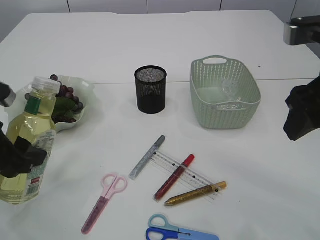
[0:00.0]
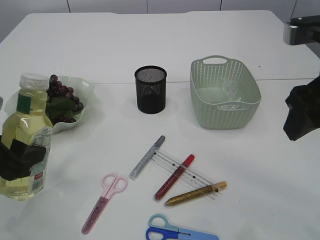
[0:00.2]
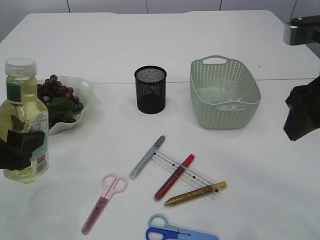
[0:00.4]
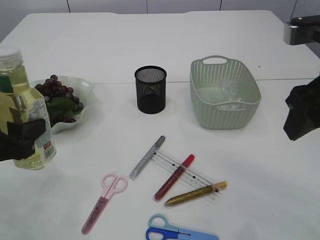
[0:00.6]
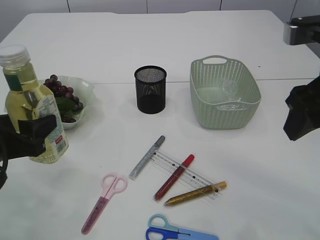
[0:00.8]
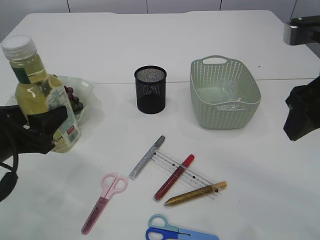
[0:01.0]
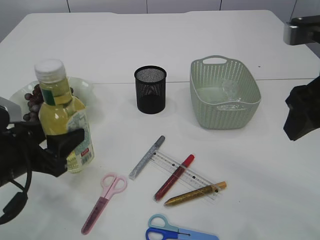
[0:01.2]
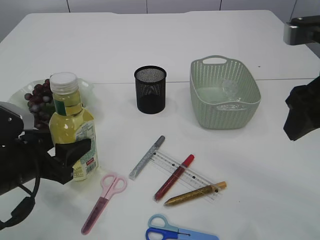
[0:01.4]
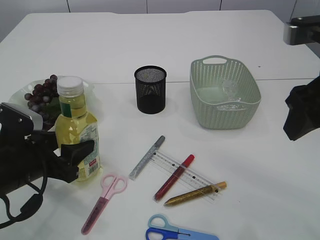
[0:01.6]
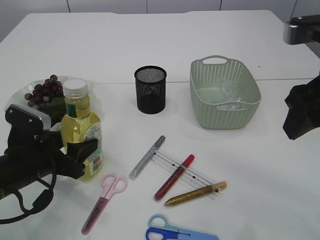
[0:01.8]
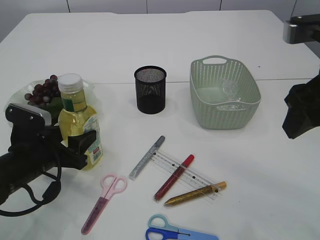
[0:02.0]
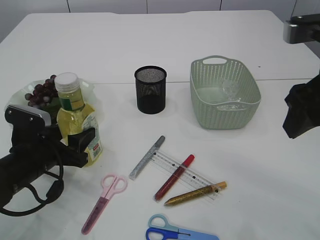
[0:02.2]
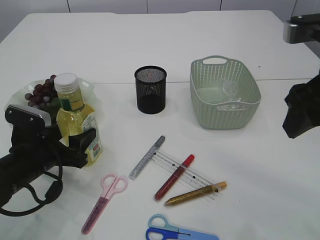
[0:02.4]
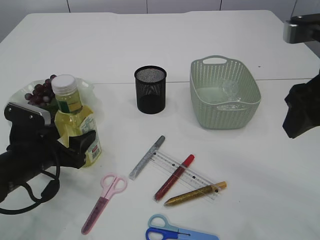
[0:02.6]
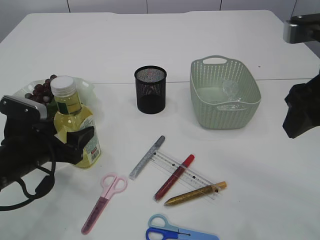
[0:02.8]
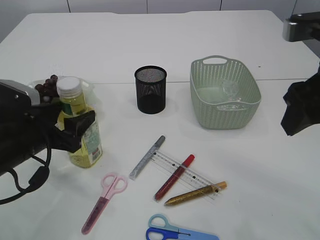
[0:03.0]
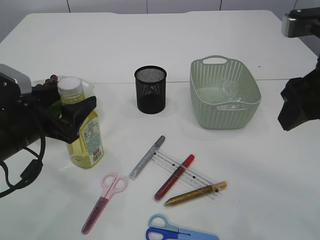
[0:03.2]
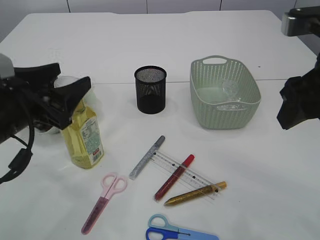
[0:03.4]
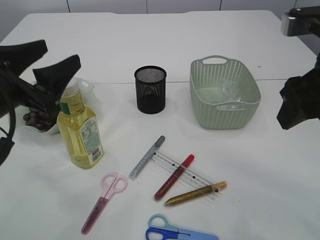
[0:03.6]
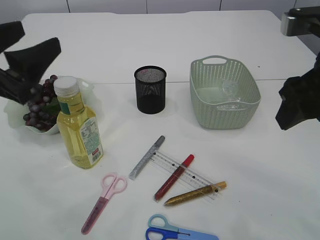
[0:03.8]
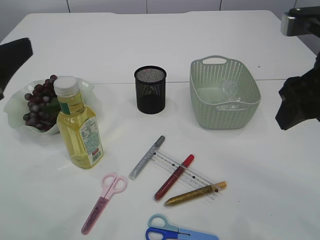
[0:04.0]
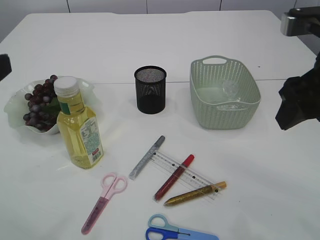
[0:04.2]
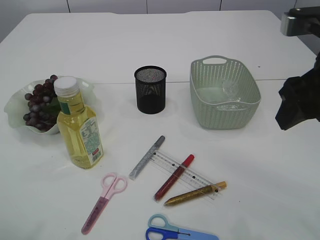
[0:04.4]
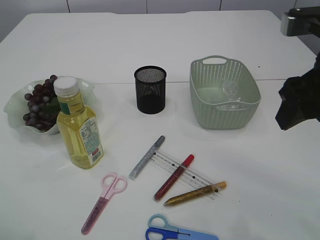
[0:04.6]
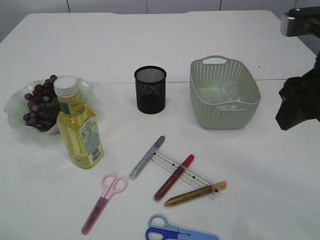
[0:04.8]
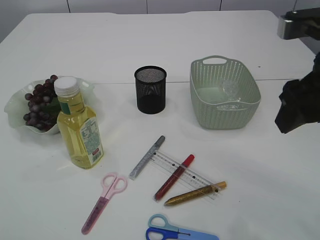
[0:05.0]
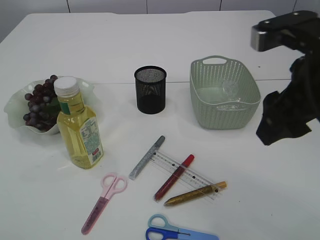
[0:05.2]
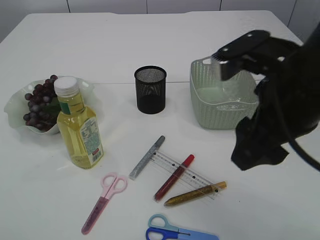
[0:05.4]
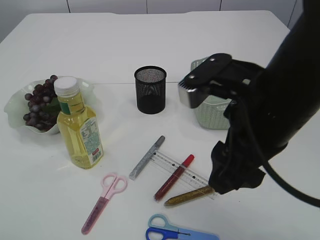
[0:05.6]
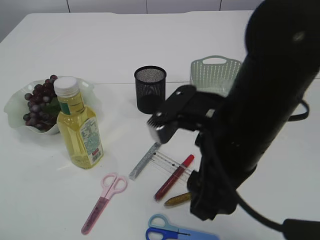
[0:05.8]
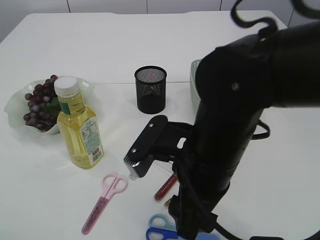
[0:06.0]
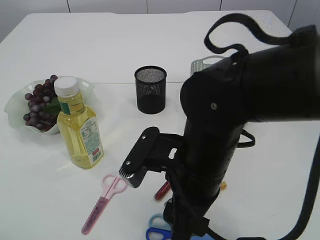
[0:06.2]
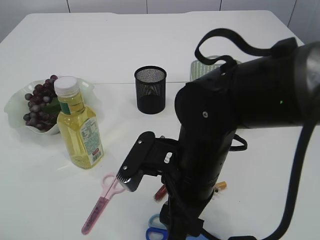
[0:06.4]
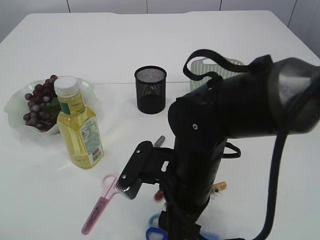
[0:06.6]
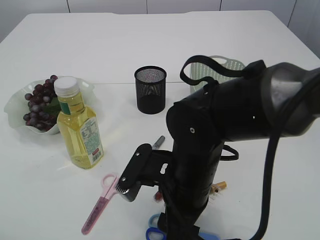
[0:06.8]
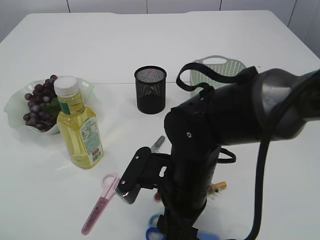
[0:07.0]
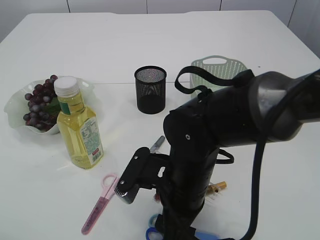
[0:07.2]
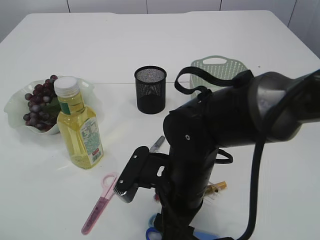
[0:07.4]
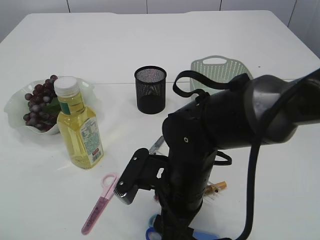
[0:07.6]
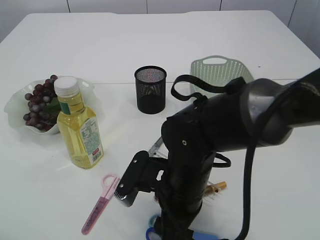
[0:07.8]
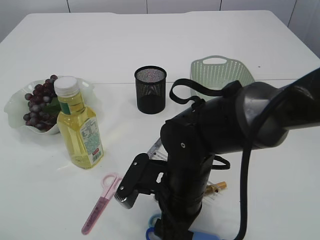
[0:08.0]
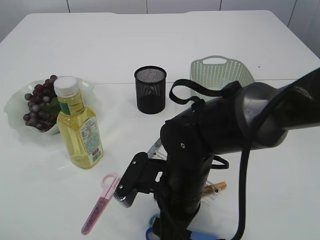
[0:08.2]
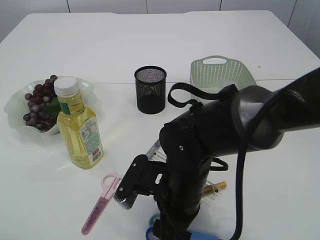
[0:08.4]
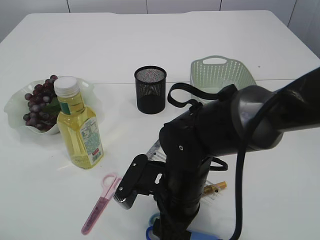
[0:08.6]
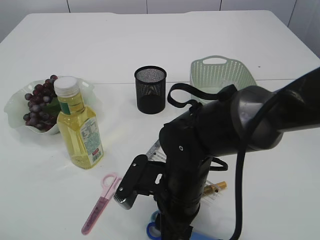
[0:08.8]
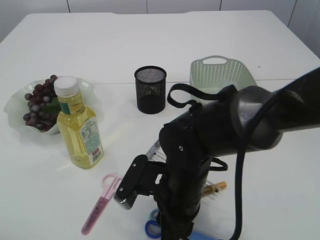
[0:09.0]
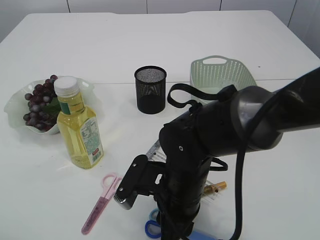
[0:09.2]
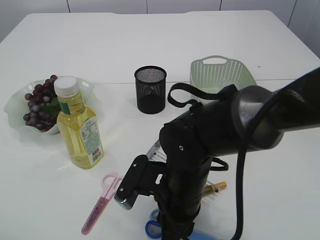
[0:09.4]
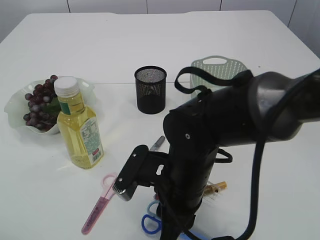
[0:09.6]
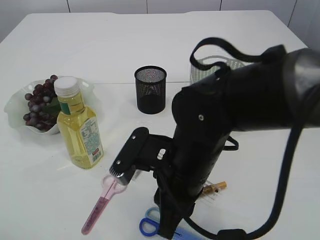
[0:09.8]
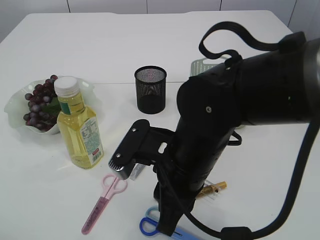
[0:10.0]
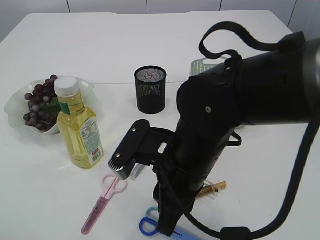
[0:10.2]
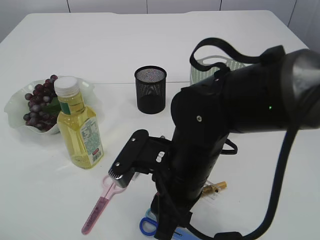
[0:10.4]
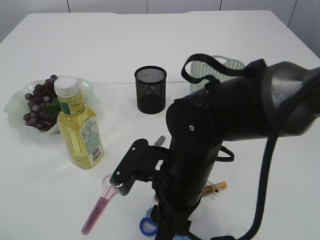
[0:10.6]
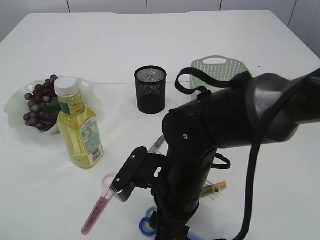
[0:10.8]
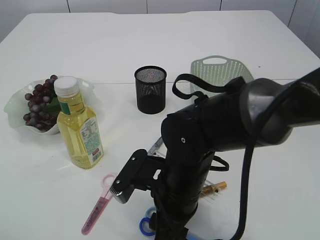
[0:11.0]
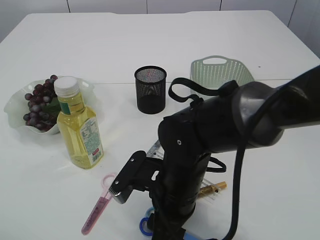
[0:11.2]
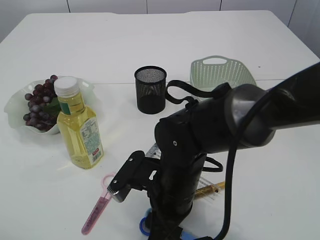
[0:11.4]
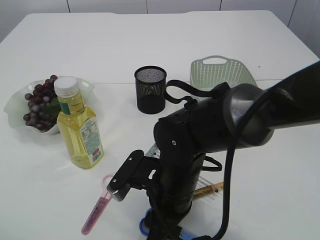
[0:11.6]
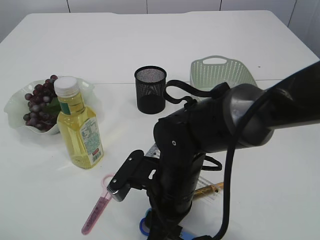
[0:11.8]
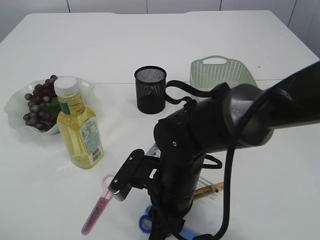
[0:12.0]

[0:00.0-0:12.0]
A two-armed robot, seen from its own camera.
Step, 0:00.4 to 0:03.6: Place the bottle.
0:00.0 to 0:01.6: The left gripper shifts approximately 10 cm downward.
0:01.6 to 0:03.0: The grippers make only small movements.
0:03.0 to 0:04.4: The left gripper goes approximately 20 cm upward and backward.
0:04.4 to 0:06.0: The left gripper moves about 5 cm, while the right gripper heads to the left and downward, covering roughly 20 cm.
0:06.0 to 0:07.6: The right gripper heads downward, covering roughly 10 cm.
0:07.6 to 0:09.0: The right gripper closes.
0:09.0 to 0:10.4: The right gripper heads upward, covering about 5 cm.
0:10.4 to 0:12.0: The right gripper heads downward, covering about 5 cm.

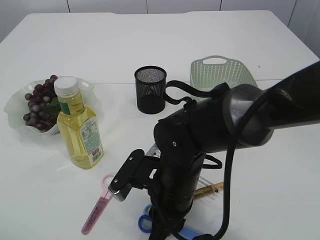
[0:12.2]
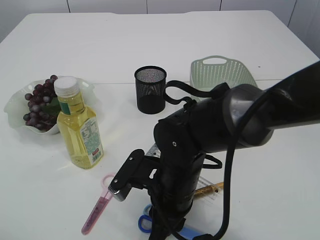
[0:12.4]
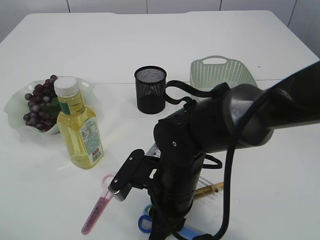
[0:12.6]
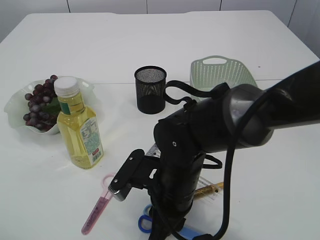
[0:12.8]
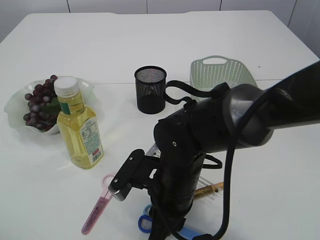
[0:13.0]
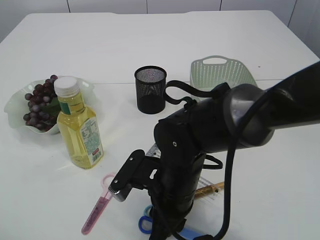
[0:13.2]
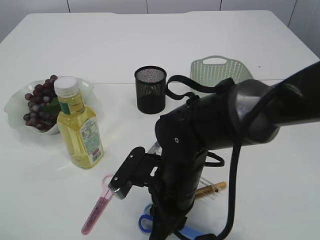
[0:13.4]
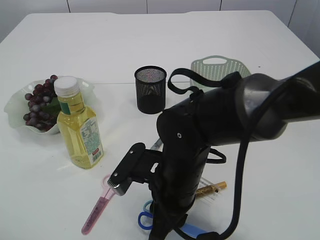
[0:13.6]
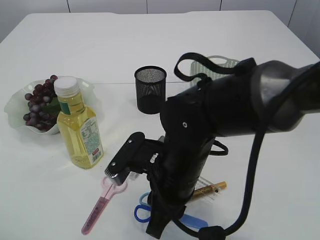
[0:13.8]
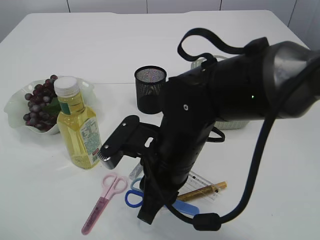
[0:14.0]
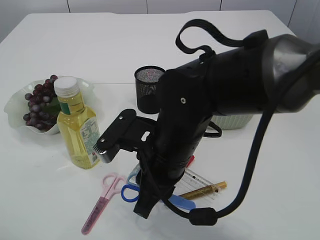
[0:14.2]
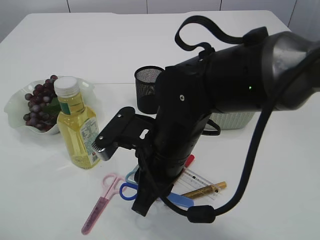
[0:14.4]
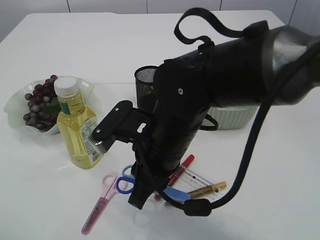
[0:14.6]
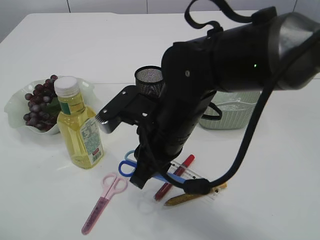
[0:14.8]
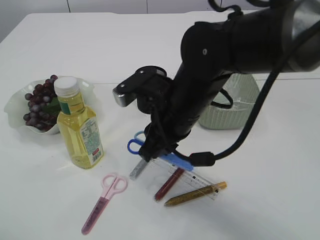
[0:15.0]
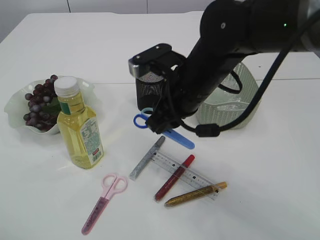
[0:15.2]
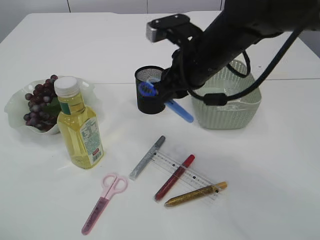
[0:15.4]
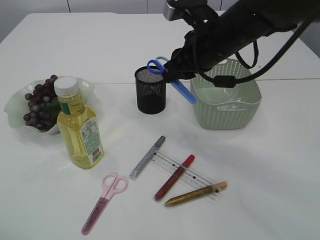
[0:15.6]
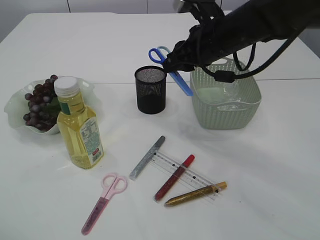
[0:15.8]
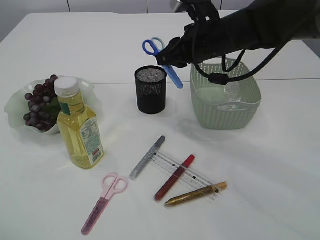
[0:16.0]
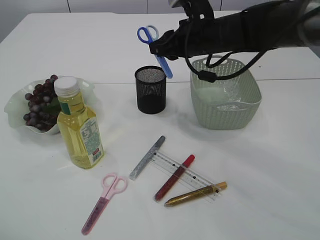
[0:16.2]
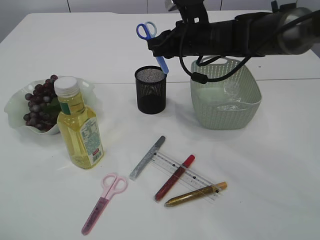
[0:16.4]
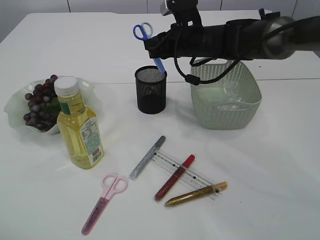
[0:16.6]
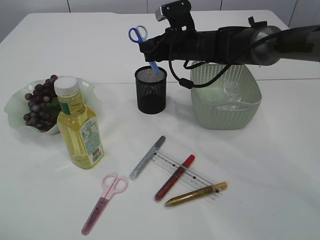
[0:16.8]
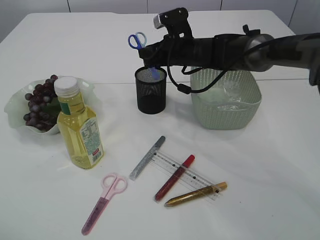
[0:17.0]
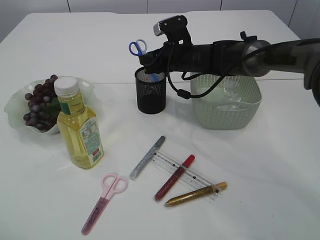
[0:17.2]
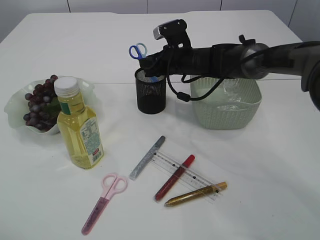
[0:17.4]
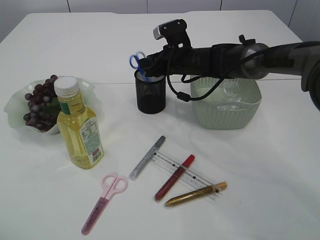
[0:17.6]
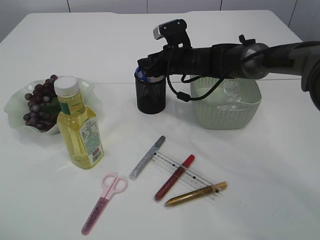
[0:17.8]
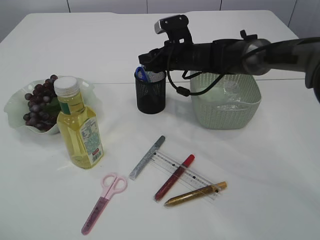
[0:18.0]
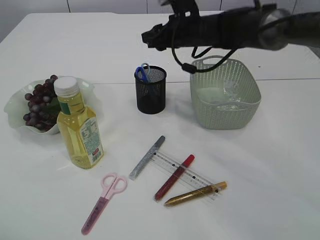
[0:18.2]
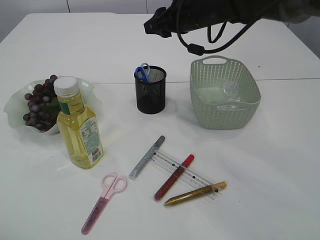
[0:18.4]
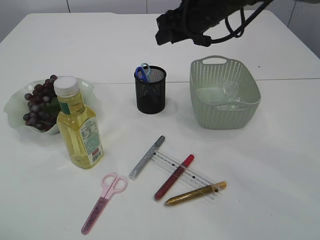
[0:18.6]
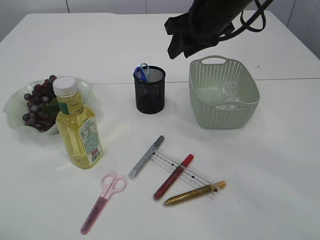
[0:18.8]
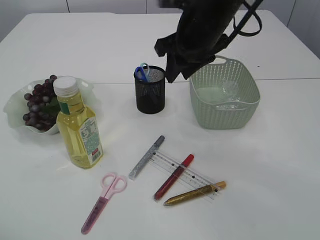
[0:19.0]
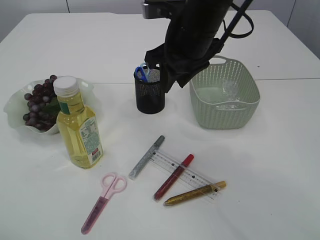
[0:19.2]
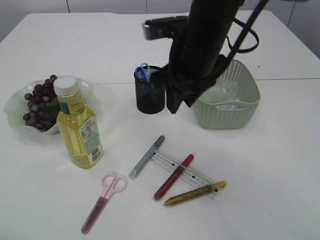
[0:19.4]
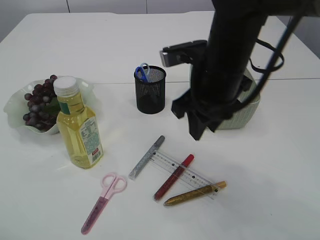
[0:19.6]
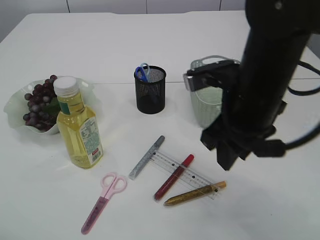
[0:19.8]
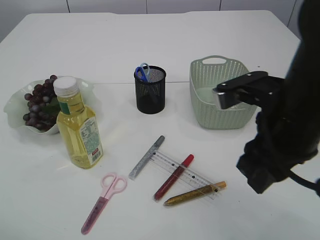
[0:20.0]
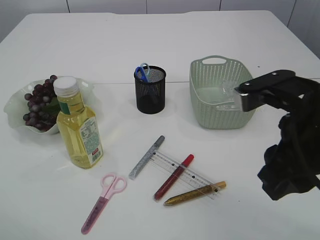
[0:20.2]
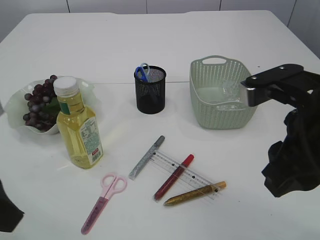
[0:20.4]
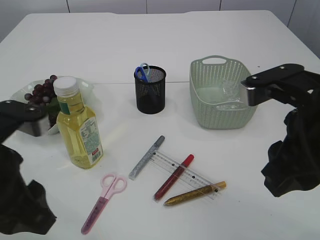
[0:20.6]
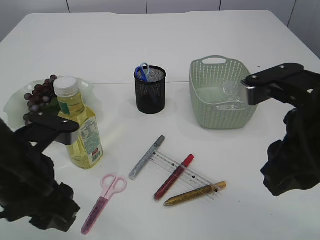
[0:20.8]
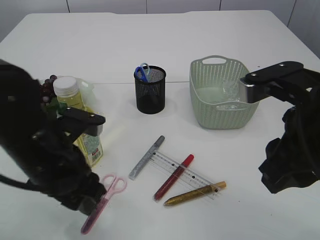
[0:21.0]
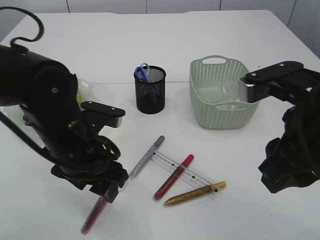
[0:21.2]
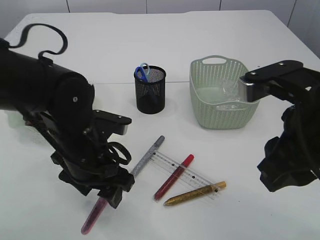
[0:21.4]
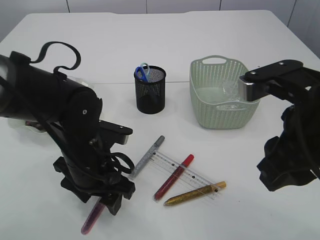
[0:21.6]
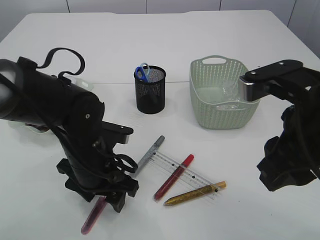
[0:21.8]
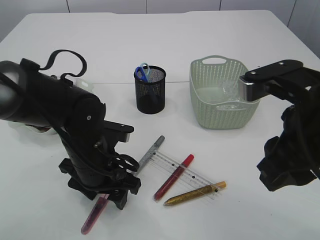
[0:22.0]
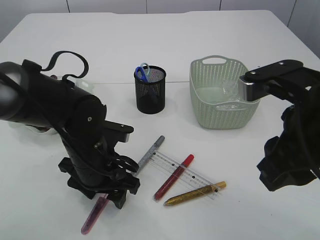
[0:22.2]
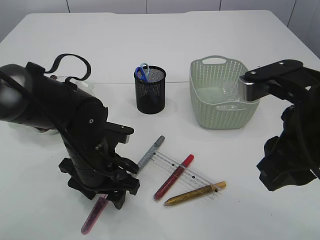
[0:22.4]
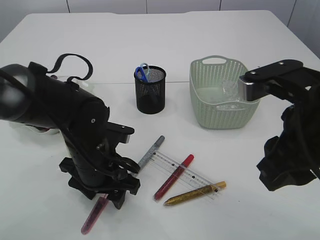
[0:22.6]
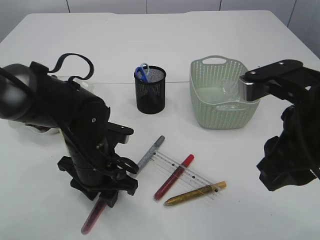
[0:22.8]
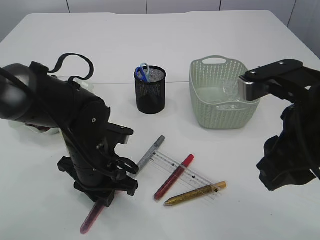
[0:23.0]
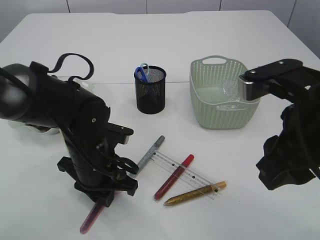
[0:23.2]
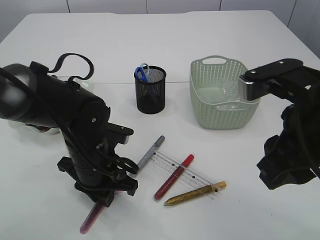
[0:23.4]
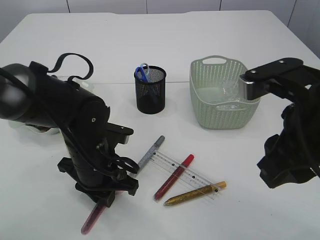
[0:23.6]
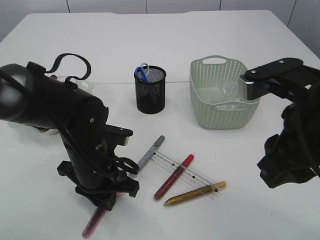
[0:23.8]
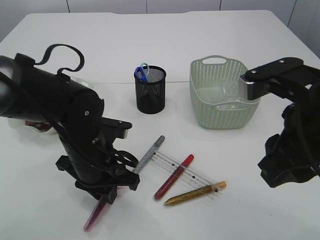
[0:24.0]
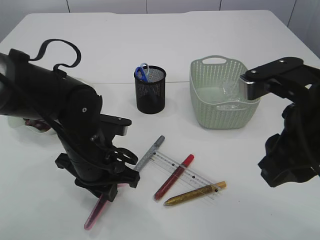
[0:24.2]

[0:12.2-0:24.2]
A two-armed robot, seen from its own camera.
Step, 0:12.2 to 0:14.4: pick up the blue scissors.
Step, 0:14.6 to 0:18.2: Place the blue scissors into the pen holder.
0:12.2 to 0:13.8: The grippers make only small movements.
0:13.8 to 0:15.2: The right gripper goes some 10 cm forward and upward.
0:15.2 to 0:16.6: The right gripper heads forward, covering approximately 15 cm.
0:18.2 to 0:19.8: The right gripper travels backward by some 25 cm.
0:19.8 to 0:21.2: The left gripper shifts approximately 25 cm to the right, downward and forward; the right gripper is displaced backward by roughly 10 cm.
0:21.2 to 0:22.6: The left gripper moves downward, some 5 cm.
0:22.6 to 0:24.2: The left gripper closes up.
